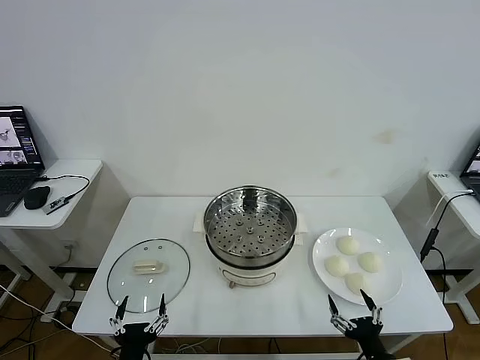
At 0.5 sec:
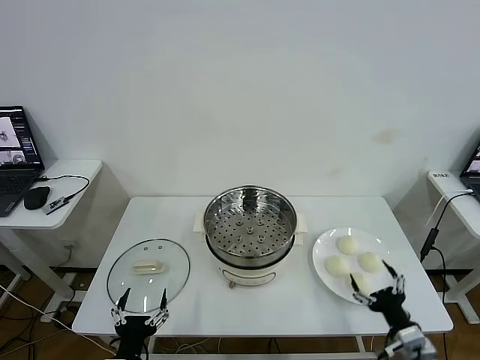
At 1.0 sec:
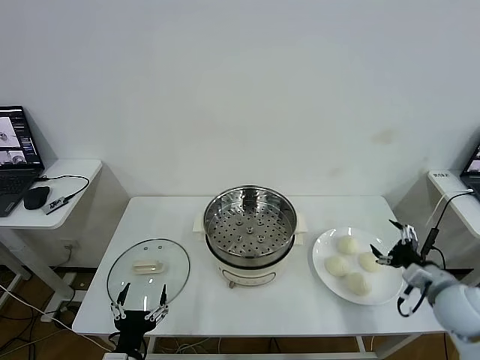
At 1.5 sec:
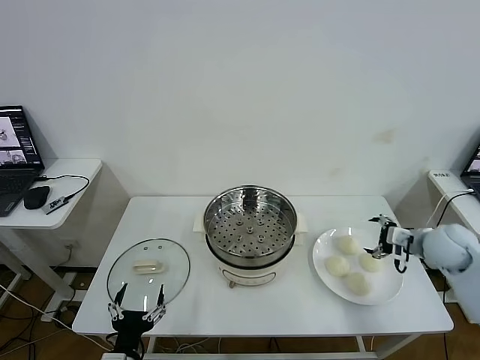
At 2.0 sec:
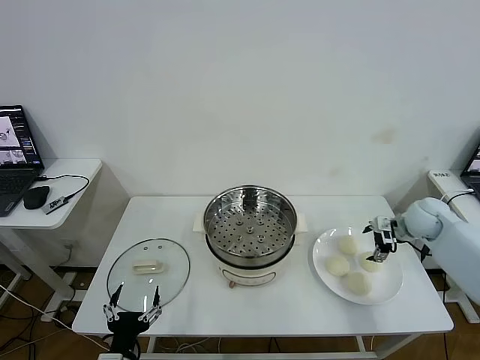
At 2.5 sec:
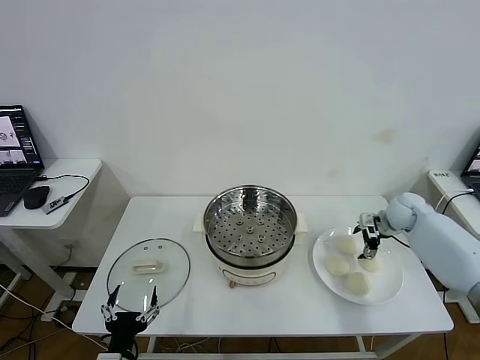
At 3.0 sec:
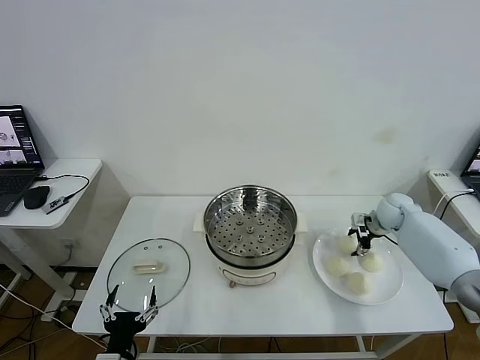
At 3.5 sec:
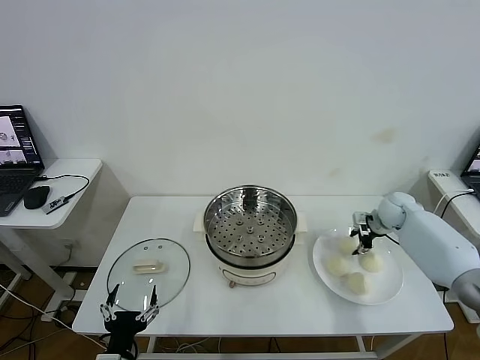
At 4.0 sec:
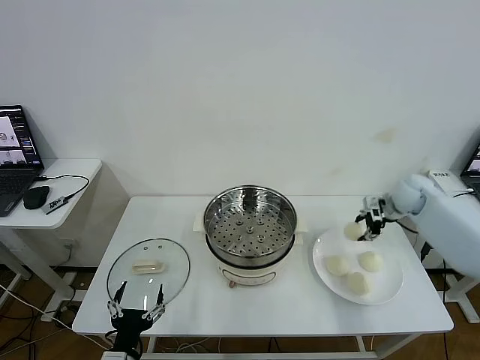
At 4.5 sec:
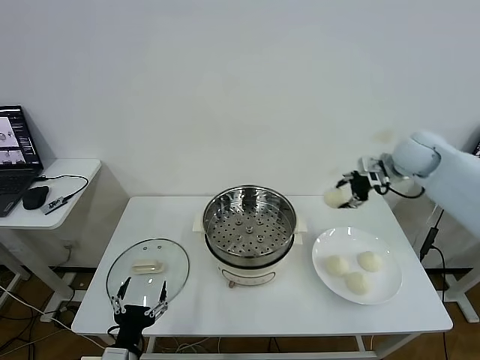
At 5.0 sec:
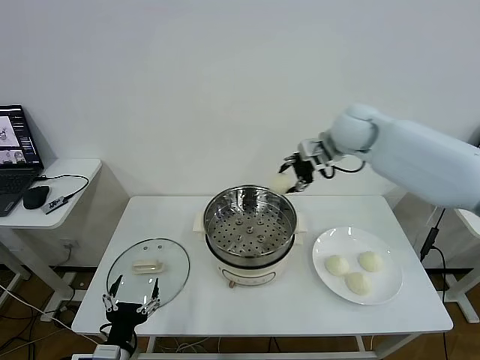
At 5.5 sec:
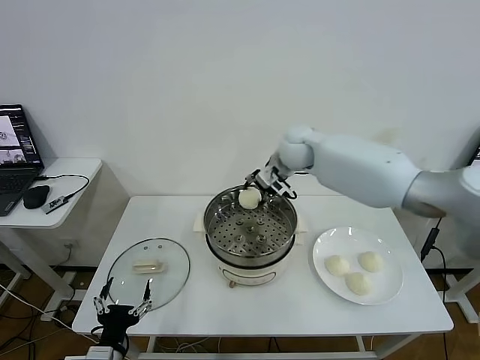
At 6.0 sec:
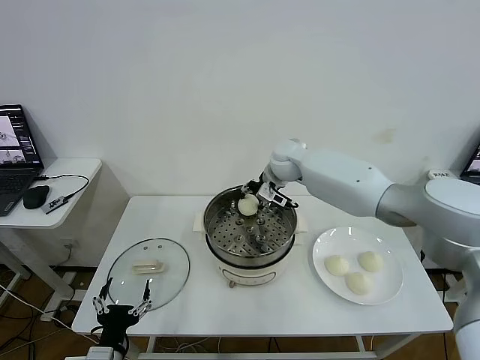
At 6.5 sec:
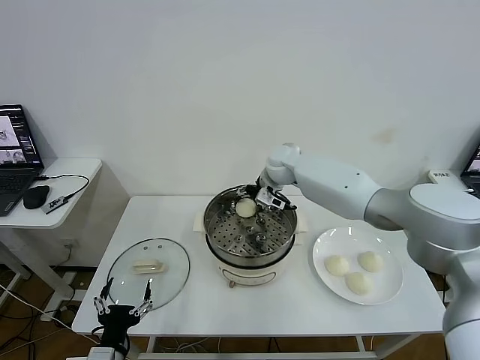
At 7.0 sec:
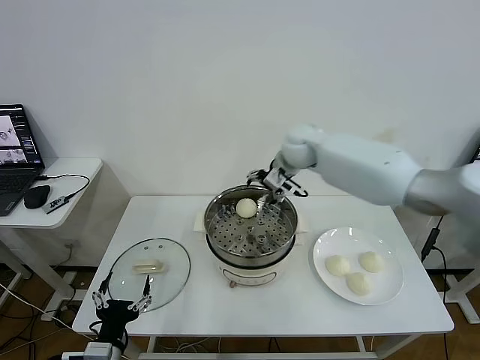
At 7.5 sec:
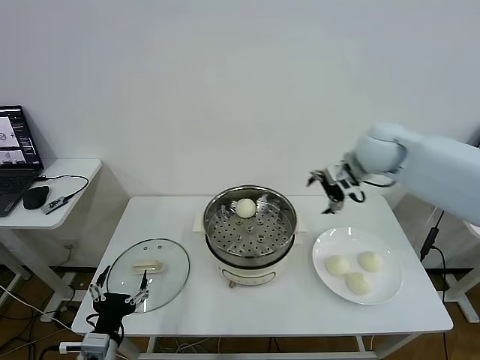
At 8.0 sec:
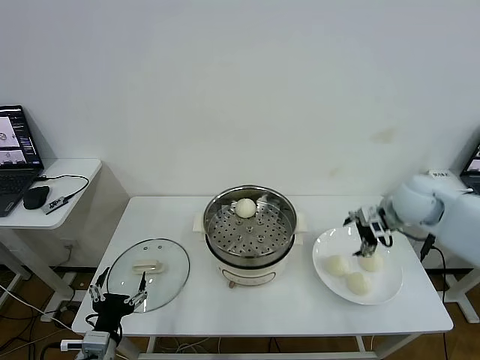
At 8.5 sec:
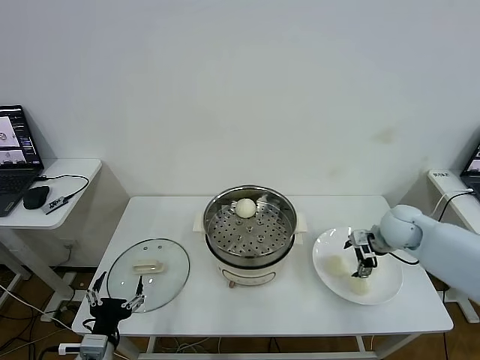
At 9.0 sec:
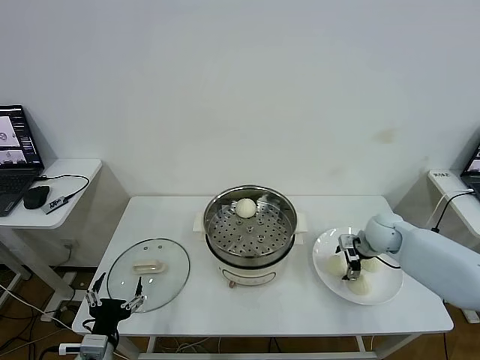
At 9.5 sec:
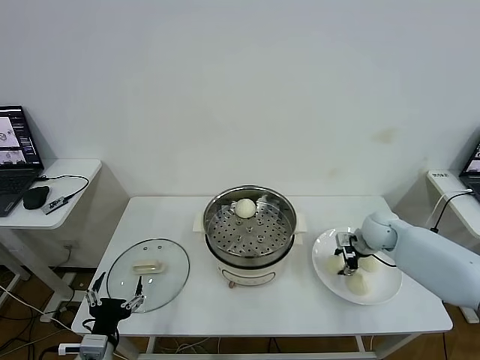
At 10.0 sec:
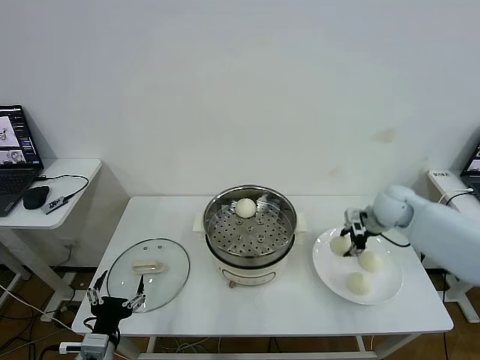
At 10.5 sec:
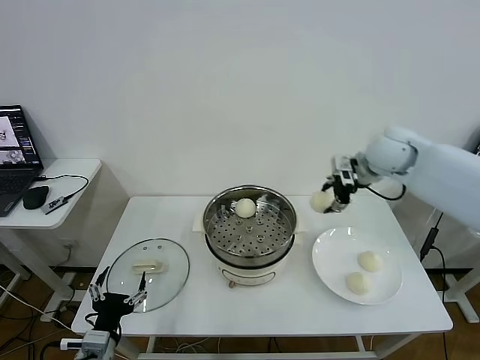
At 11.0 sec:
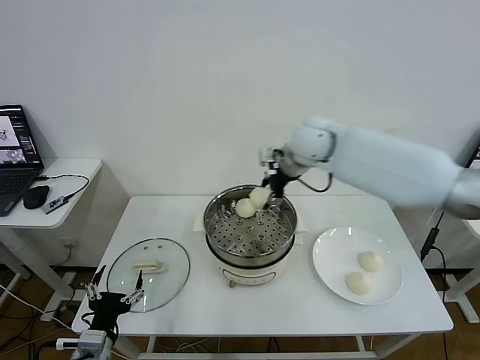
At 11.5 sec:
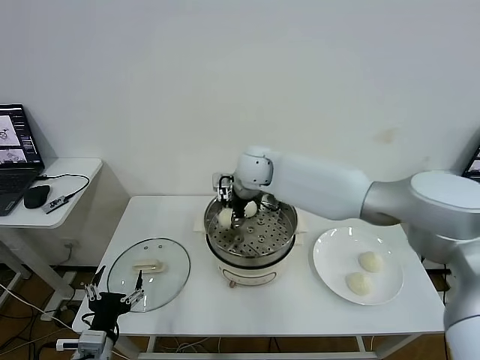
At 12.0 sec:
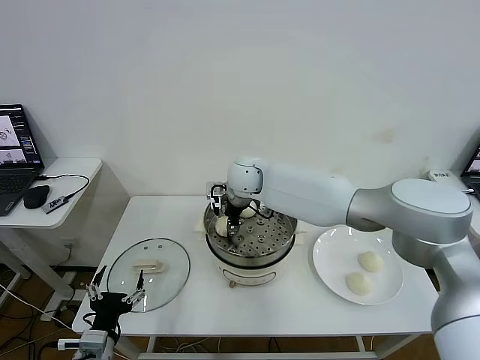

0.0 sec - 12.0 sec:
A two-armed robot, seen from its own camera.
Task of the whole recording: take steamed baozi put them in steamer then cover it.
Step, 0.0 sec - 3.0 sec: Grasp the baozi in the plate with right gripper.
Step, 3.5 sec - 6.5 sec: Place the baozi on the steamer with right gripper.
Step, 7.0 sec - 9.5 sec: Grasp the baozi in the plate with right gripper.
2.0 sec - 4.0 sec: The right gripper travels forward by some 5 cm, and closes its fingers.
4.0 sec - 6.0 sec: The right gripper shifts some 30 cm to the left.
6.0 sec - 8.0 sec: The right gripper travels to the right and backward by about 30 cm, and opens.
8.0 sec - 10.0 sec: The right gripper shifts approximately 5 cm downward, and closes.
10.0 sec - 12.0 sec: The right gripper shifts about 35 cm to the left.

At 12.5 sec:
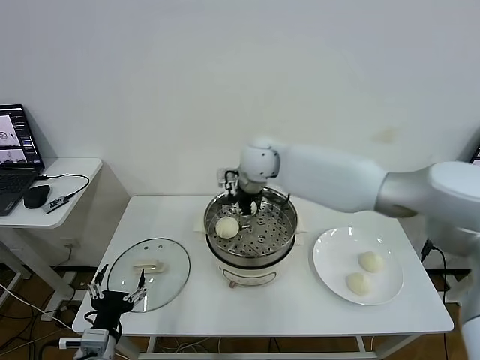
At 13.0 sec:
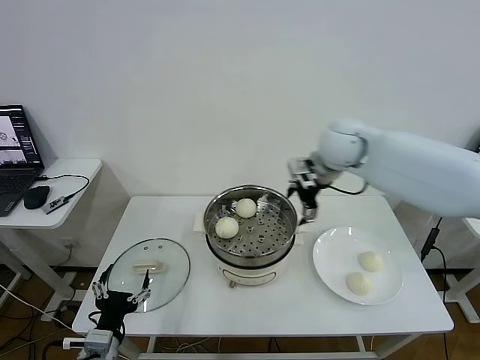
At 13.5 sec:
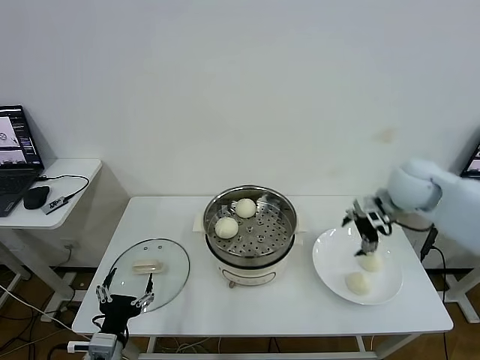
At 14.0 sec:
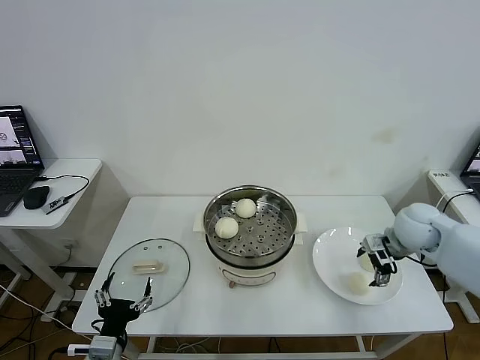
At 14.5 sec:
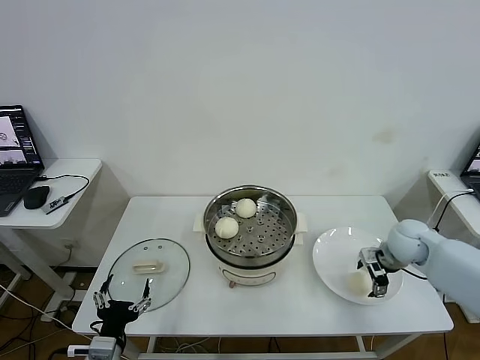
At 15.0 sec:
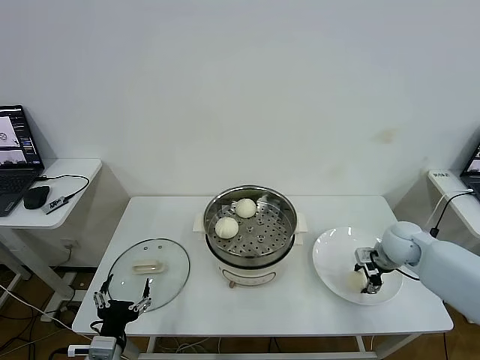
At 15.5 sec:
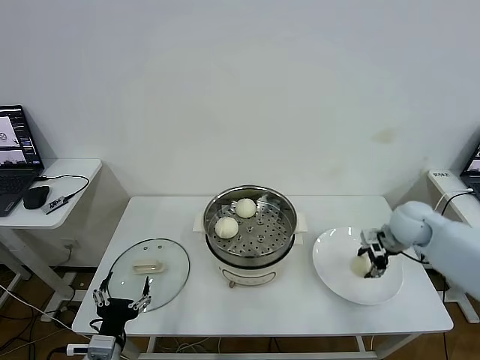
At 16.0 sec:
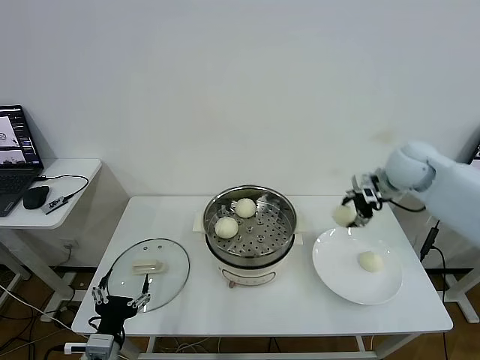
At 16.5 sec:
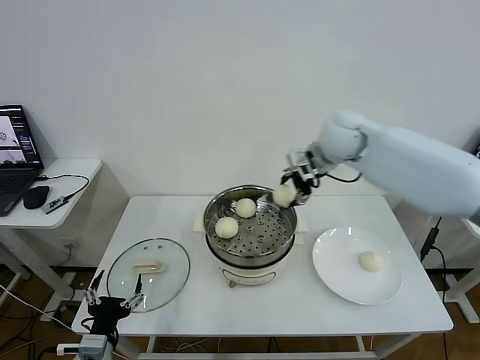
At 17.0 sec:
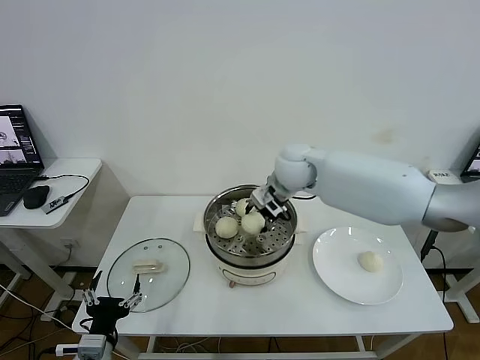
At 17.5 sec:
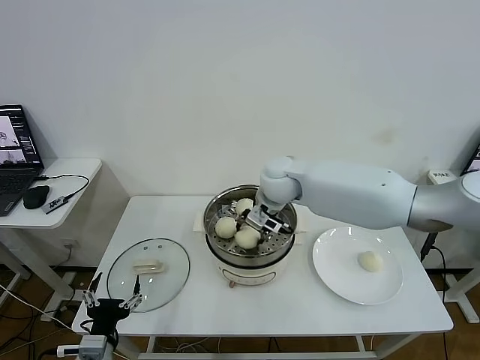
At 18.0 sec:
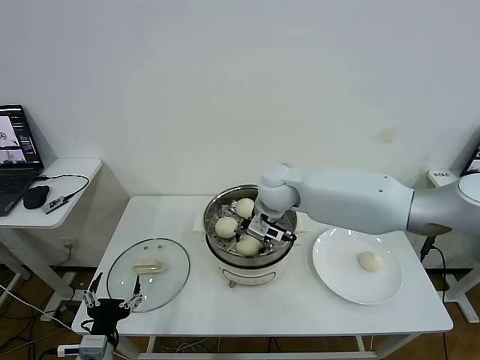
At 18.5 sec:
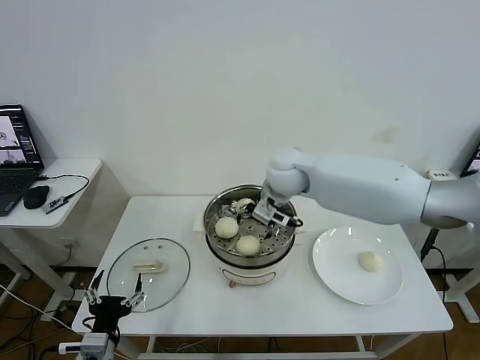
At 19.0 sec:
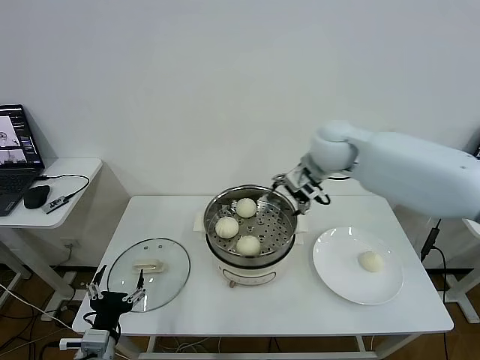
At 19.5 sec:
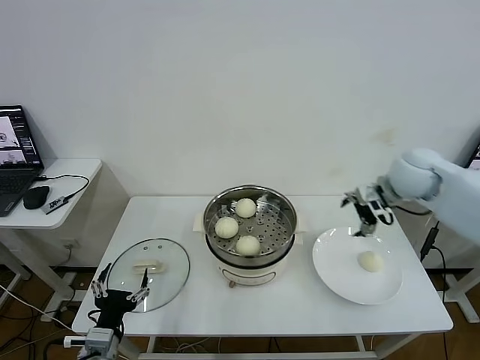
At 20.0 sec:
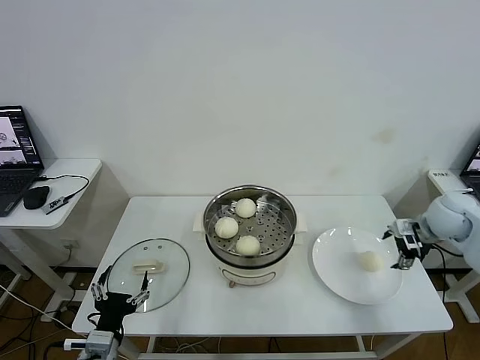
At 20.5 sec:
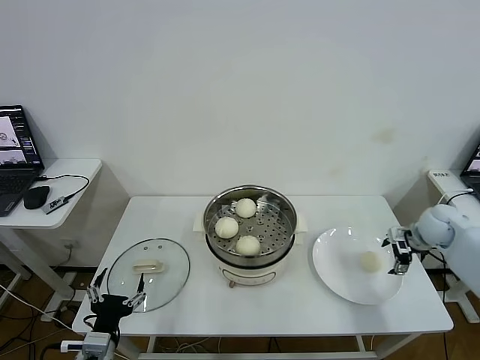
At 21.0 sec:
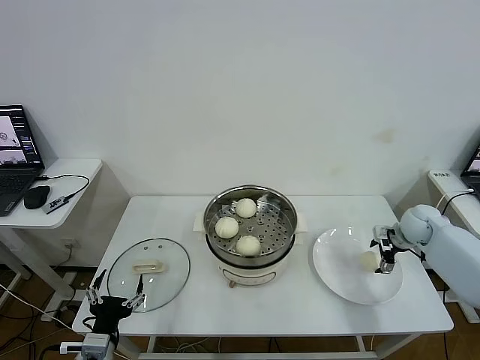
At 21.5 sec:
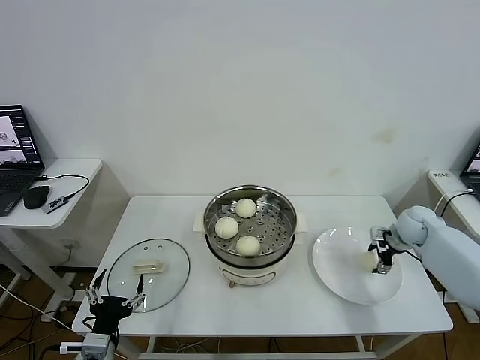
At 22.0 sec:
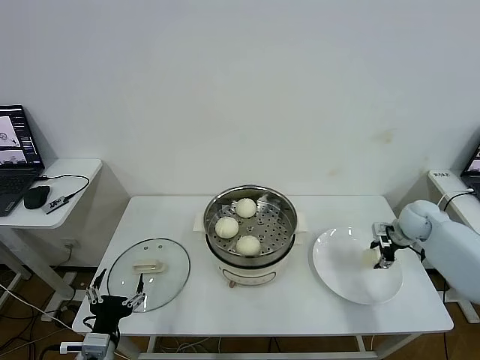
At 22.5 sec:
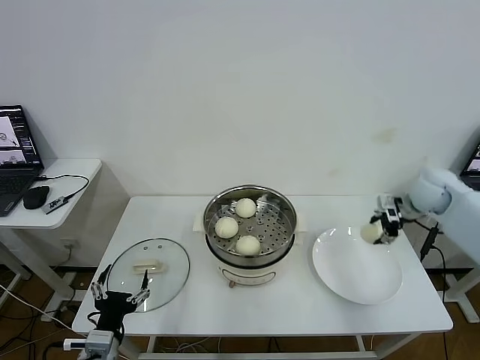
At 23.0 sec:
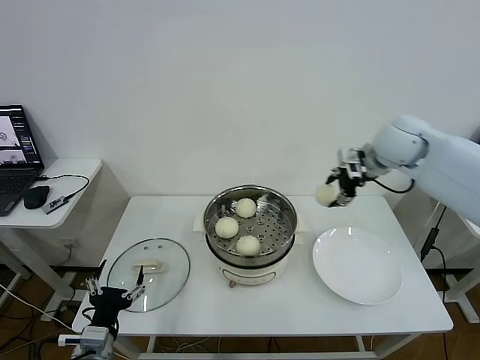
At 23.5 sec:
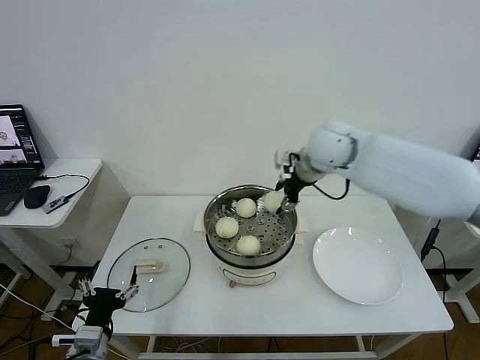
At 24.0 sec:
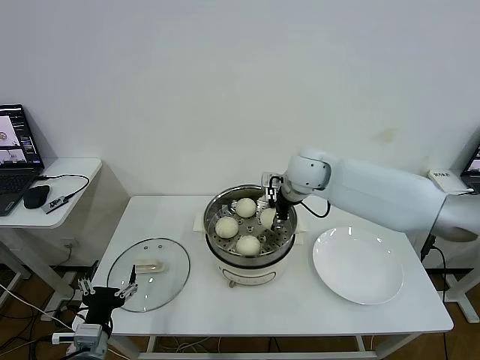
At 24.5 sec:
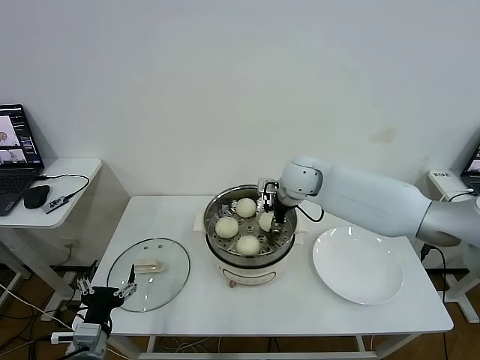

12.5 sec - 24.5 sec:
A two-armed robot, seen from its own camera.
Task of the whole recording: take steamed baozi put them in steamer then cover it.
Step, 12.5 sec - 15.0 sec: Grasp the baozi in the plate with right gripper.
Step, 15.5 sec - 18.0 sec: Place the baozi on the steamer with right gripper.
Step, 18.5 sec - 21.5 sec: Grasp the baozi in the plate with right gripper.
12.5 sec - 14.5 sec: The right gripper heads to the right and downward, covering some 40 cm.
14.5 sec - 16.5 sec: The right gripper goes some 30 cm upward, to the left and forward, and closes its fingers.
16.5 sec - 18.5 sec: The right gripper travels to the left and downward by approximately 10 cm, and opens.
18.5 sec - 20.5 sec: The right gripper heads to the right, covering some 40 cm.
20.5 sec - 22.5 sec: The right gripper moves upward, about 10 cm, and closes its fingers.
22.5 sec - 24.5 sec: The right gripper moves to the left, roughly 30 cm.

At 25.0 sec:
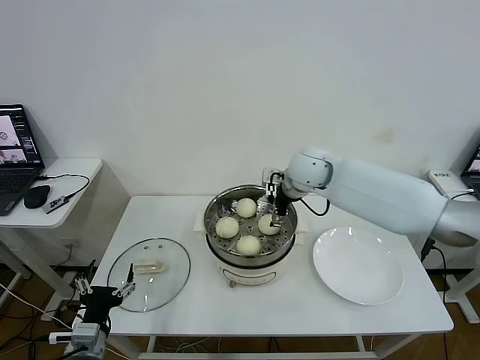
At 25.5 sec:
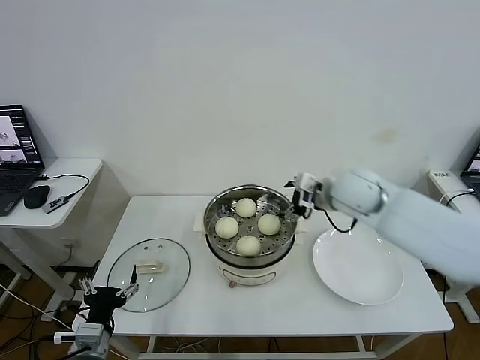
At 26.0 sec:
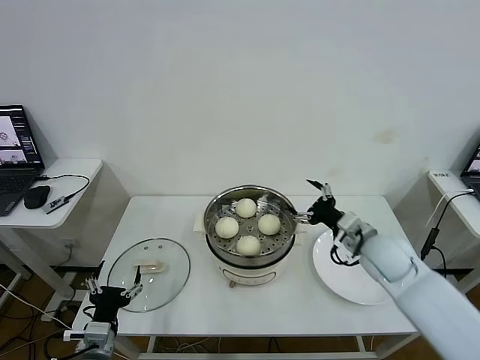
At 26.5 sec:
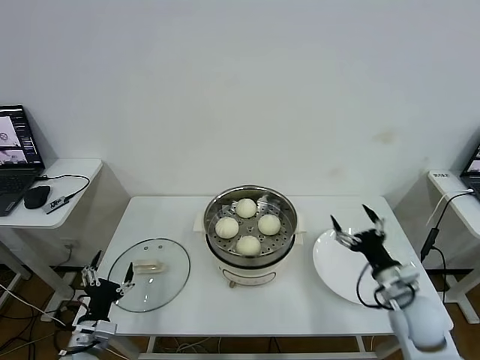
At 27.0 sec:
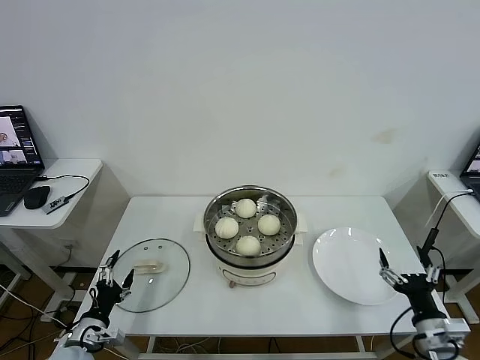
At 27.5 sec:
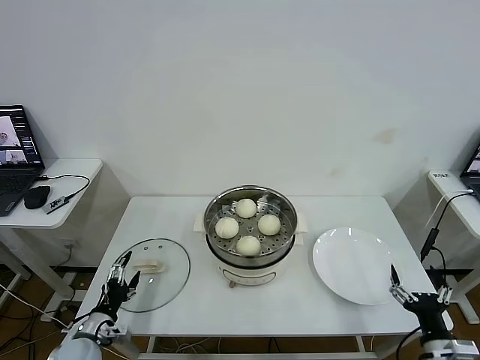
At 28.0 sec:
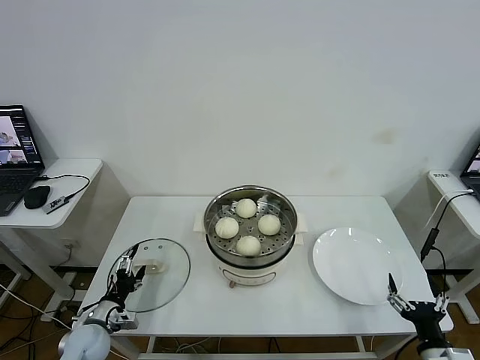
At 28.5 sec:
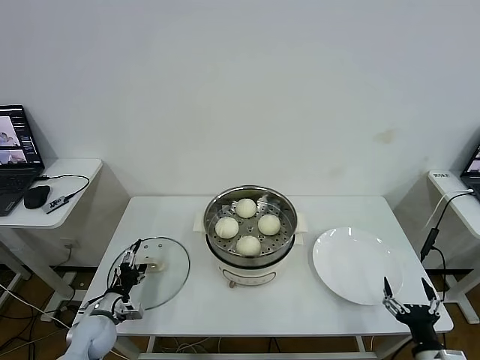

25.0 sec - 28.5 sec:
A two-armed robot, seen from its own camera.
Task of the whole recording: take steamed baozi put them in steamer then cover it.
25.0 sec - 27.0 sec: The left gripper moves downward and to the left, about 10 cm. Meanwhile the right gripper goes approximately 50 cm backward, to the right and downward.
27.0 sec - 28.5 sec: The left gripper travels forward by roughly 10 cm. The right gripper goes some 5 cm backward.
